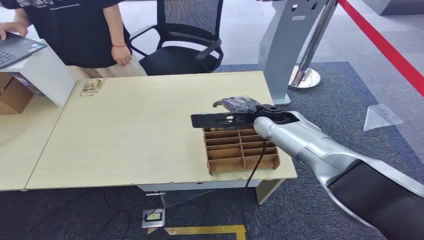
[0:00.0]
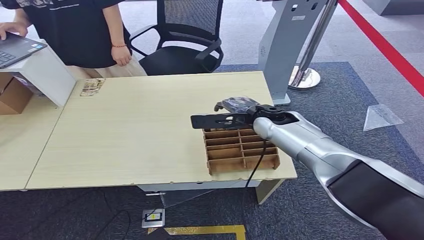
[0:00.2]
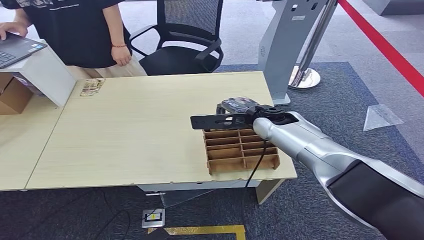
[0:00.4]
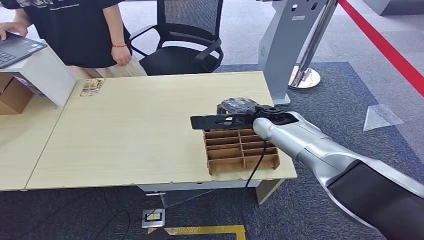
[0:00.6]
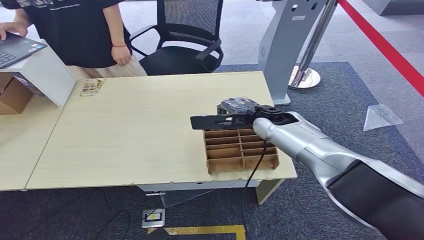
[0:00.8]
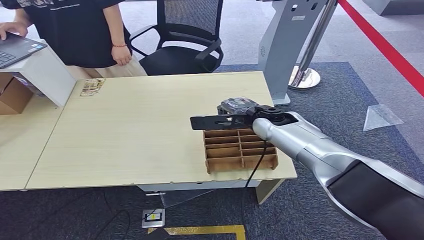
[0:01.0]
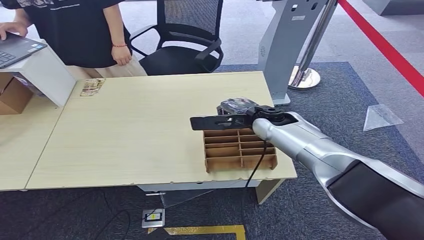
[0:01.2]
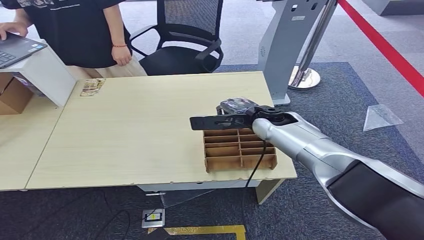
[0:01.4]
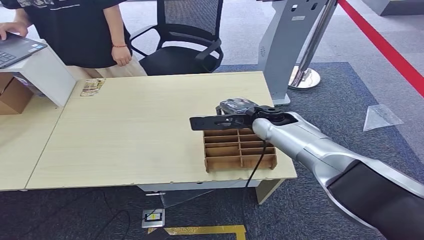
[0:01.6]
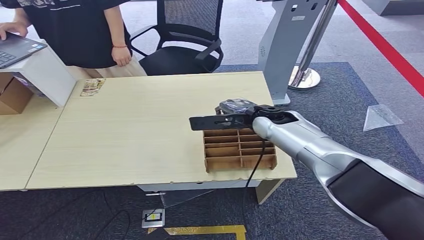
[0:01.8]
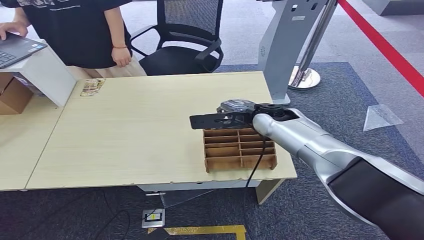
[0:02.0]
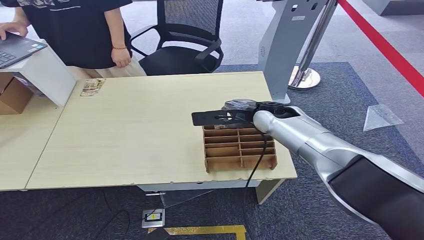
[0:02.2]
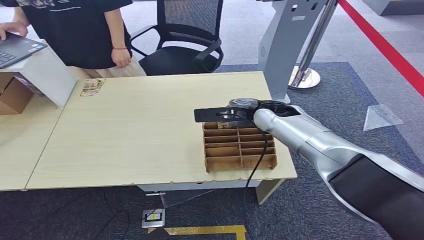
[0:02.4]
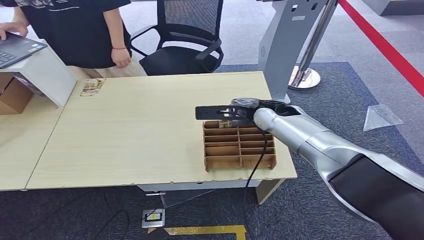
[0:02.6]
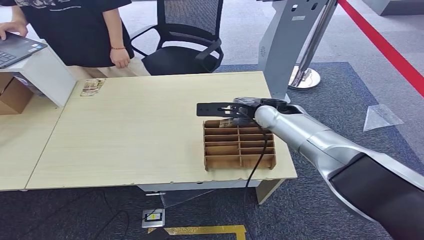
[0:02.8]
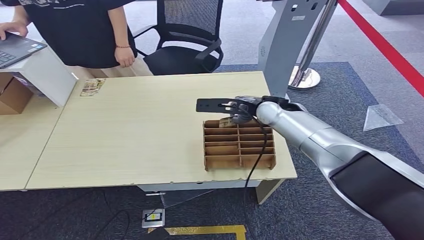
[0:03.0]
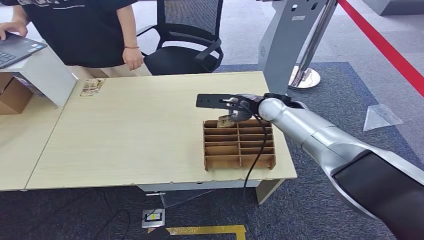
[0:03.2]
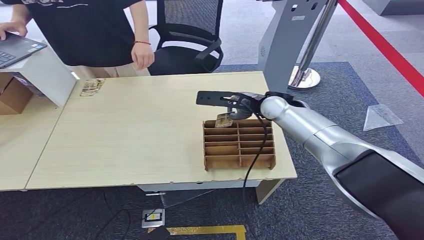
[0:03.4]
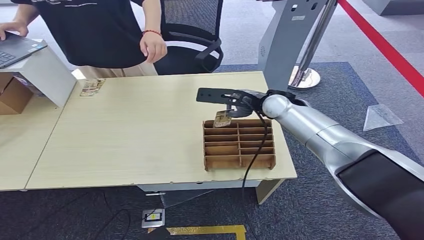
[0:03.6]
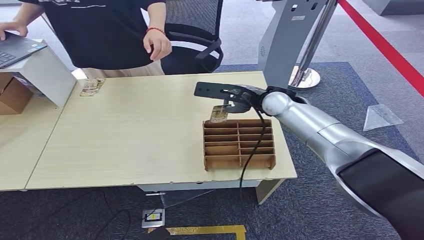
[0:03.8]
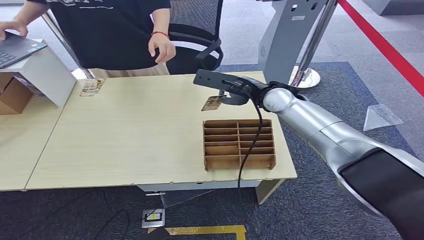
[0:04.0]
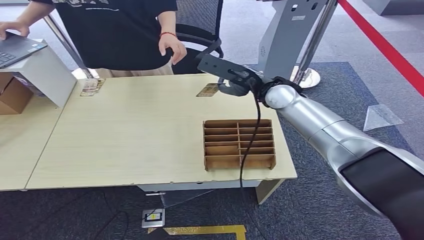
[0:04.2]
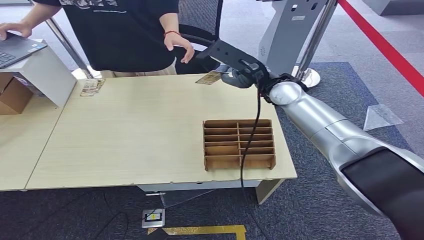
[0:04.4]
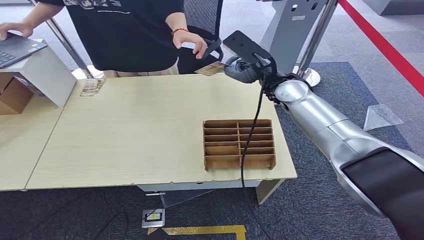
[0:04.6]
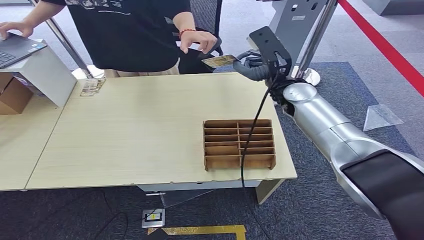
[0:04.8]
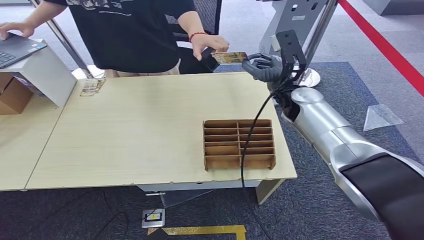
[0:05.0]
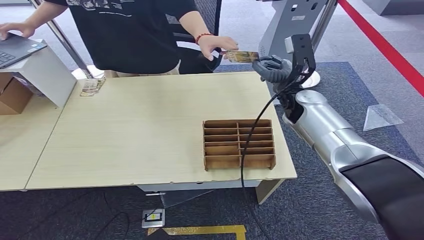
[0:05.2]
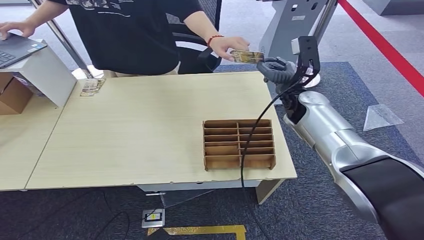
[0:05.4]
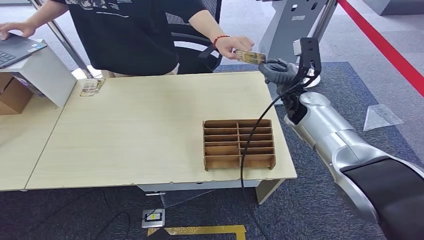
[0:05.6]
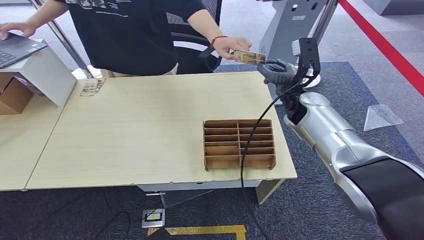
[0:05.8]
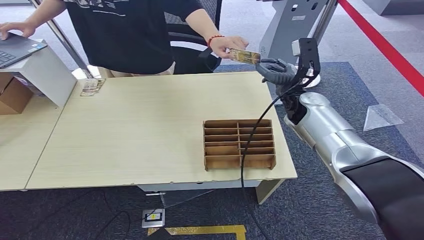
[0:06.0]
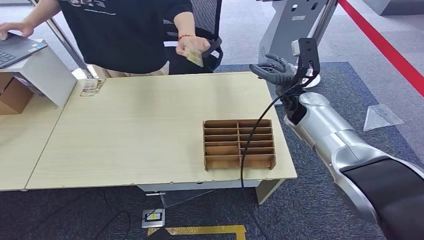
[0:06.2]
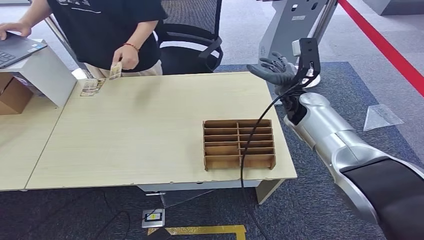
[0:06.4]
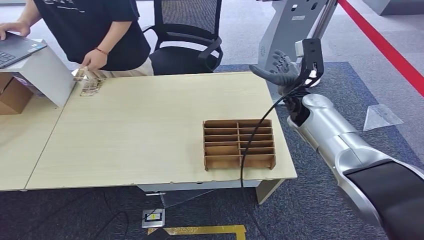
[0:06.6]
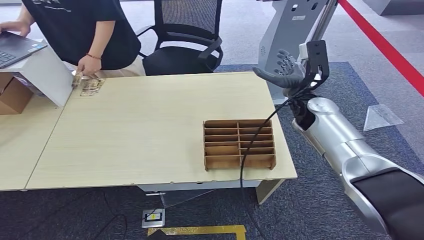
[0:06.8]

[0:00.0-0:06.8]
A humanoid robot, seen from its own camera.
Step, 0:00.0 to 0:03.8: Pick up the room card from the card holder.
Step, 0:04.0 to 0:06.8: Hand the room card to the target.
0:02.8 to 0:04.0: The right hand ends up approximately 5 cm from where it was.
0:04.0 to 0:05.4: The right hand goes roughly 5 cm to the right.
0:05.4 to 0:06.8: The hands make only small movements.
